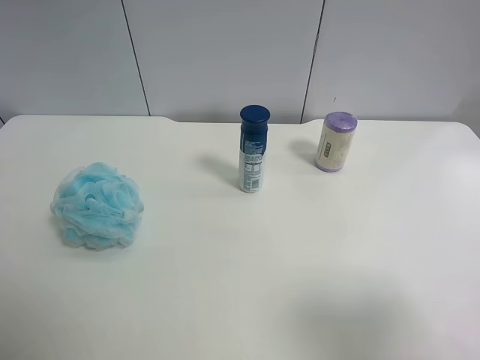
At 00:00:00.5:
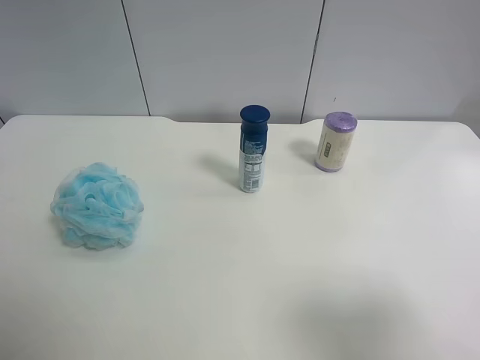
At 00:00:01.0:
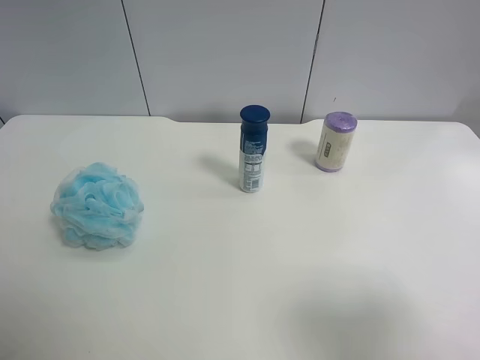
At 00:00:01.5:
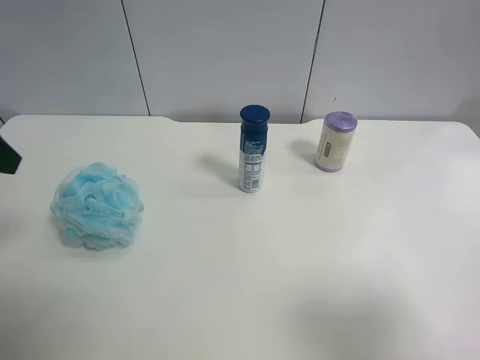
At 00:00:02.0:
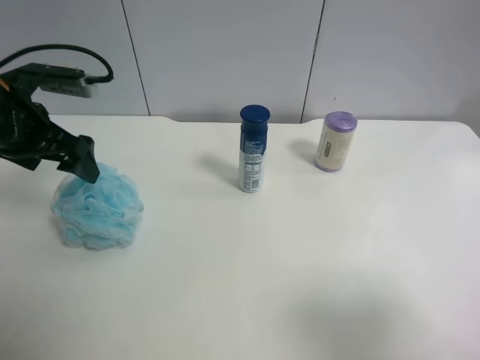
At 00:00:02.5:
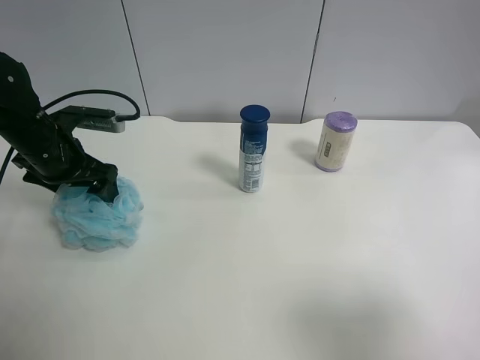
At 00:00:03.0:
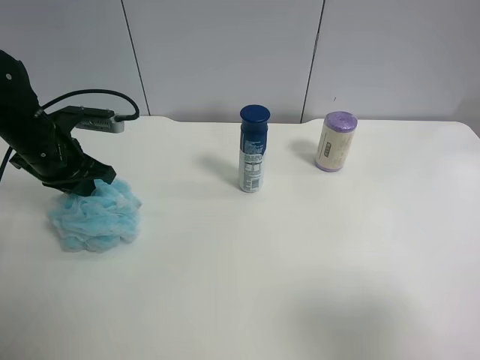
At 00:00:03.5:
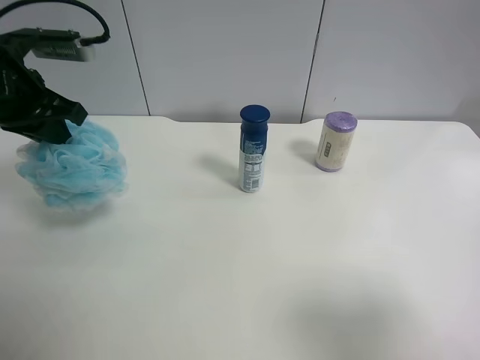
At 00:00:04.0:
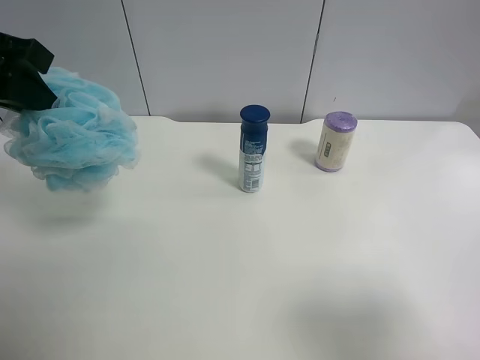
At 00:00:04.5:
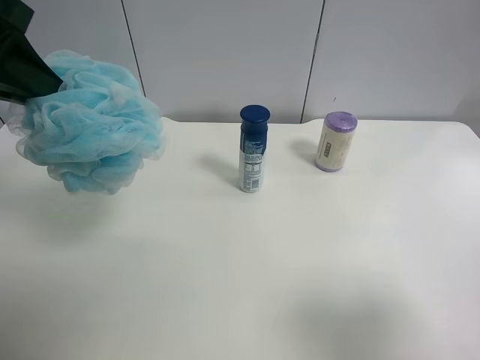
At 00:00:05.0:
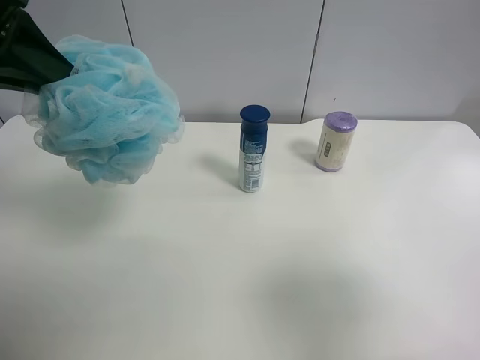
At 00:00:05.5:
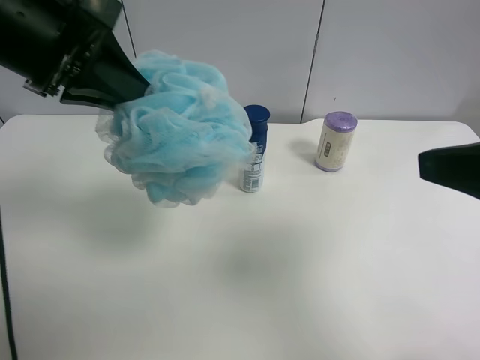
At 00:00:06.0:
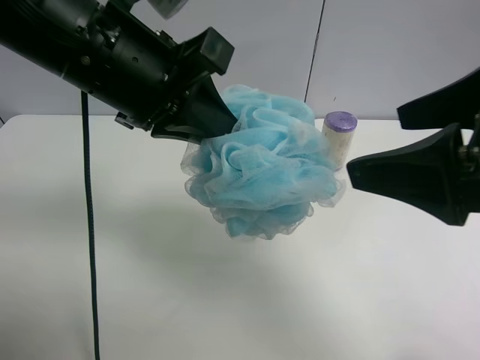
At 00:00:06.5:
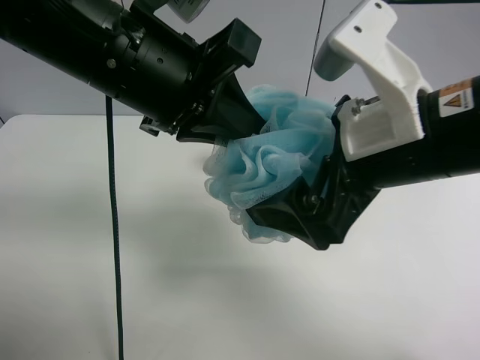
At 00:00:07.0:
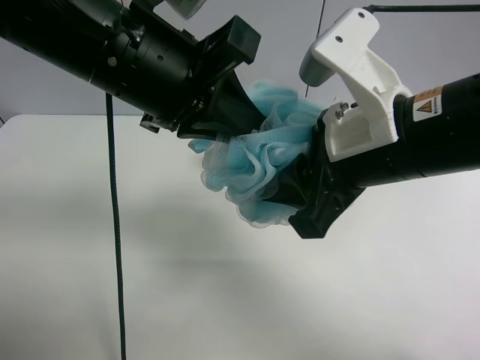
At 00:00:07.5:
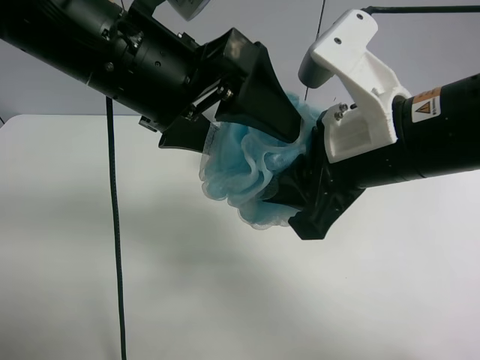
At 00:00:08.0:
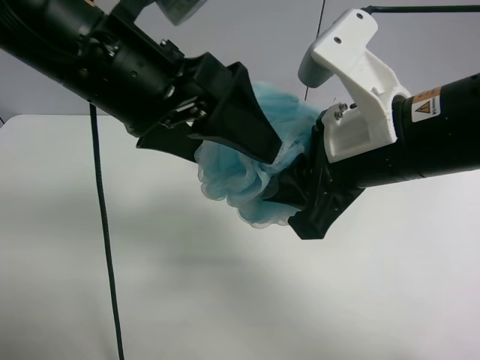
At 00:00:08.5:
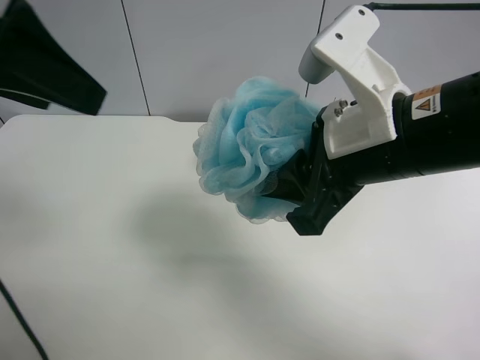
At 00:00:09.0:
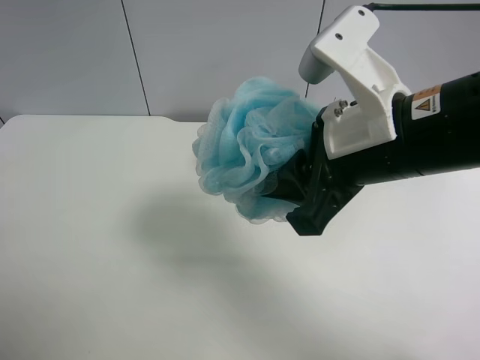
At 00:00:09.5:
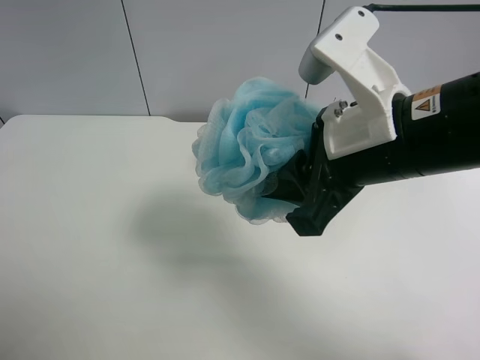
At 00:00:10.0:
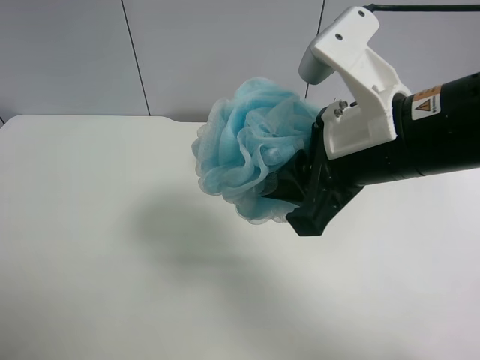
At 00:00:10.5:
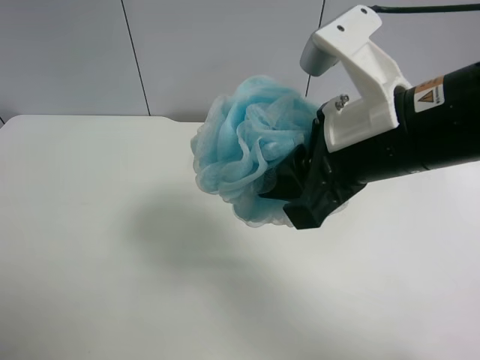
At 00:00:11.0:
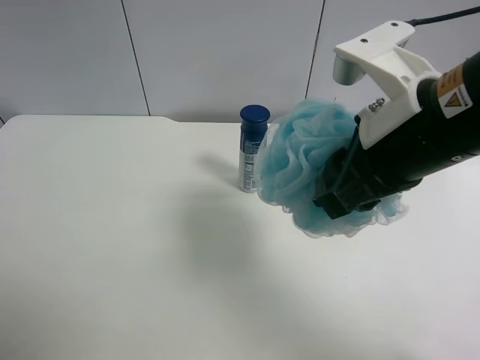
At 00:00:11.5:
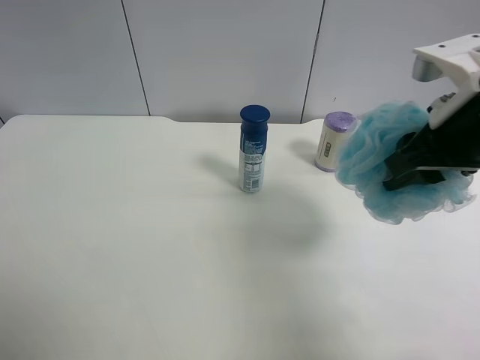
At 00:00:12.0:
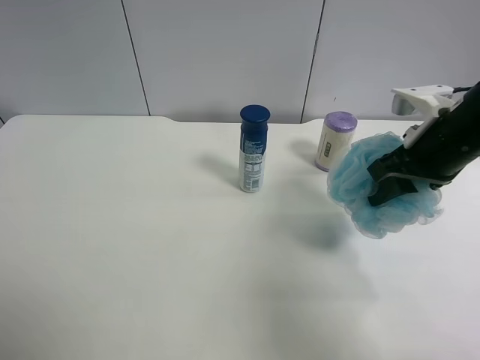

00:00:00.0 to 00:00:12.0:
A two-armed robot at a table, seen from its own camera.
Task of the whole recording: use the left gripper to pick up the item and transfer it from the left gripper to the right gripper.
00:00:00.0 to 00:00:02.0: The left gripper goes about 30 cm forward.
00:00:02.0 to 00:00:04.0: The left gripper shifts roughly 15 cm upward and backward, and closes.
00:00:04.0 to 00:00:06.0: The right gripper travels forward, to the left and upward by approximately 15 cm, while the left gripper shifts roughly 15 cm to the right.
00:00:06.0 to 00:00:08.0: The right gripper is displaced to the left and downward by roughly 10 cm, and closes up, while the left gripper opens.
00:00:08.0 to 00:00:10.0: The left gripper is displaced backward and to the left by roughly 30 cm.
00:00:10.0 to 00:00:12.0: The right gripper is displaced to the right, forward and downward by approximately 15 cm.

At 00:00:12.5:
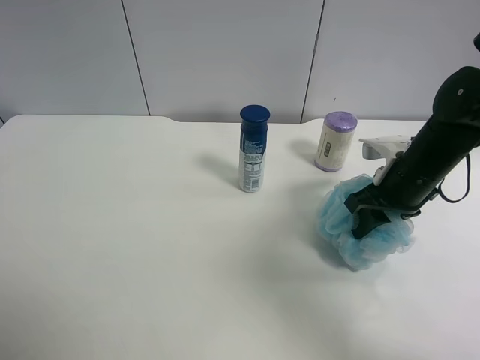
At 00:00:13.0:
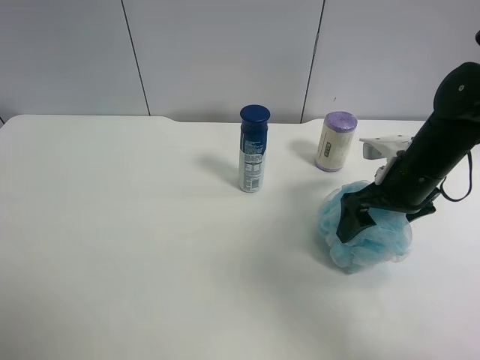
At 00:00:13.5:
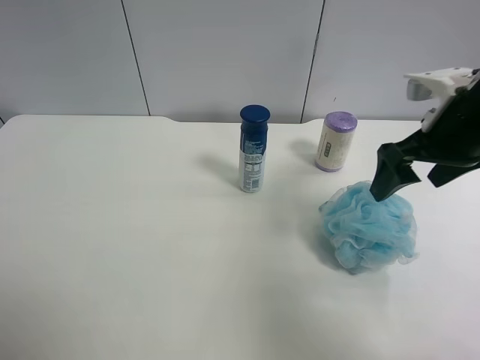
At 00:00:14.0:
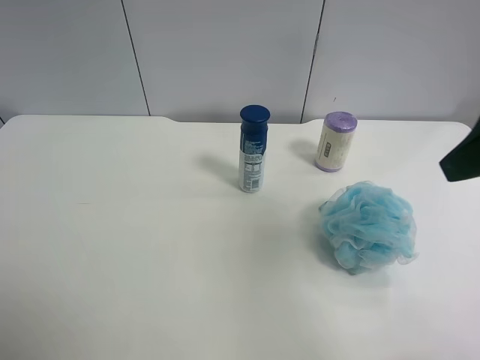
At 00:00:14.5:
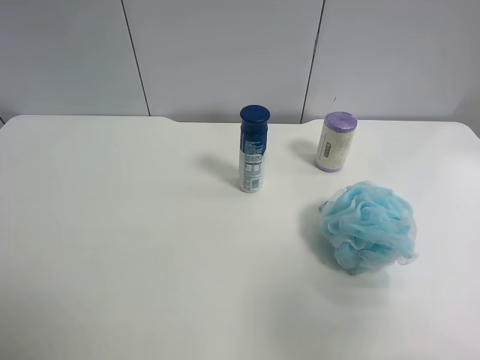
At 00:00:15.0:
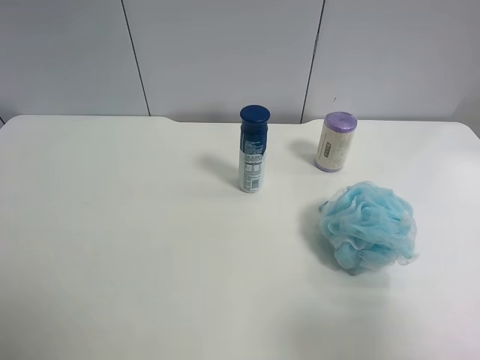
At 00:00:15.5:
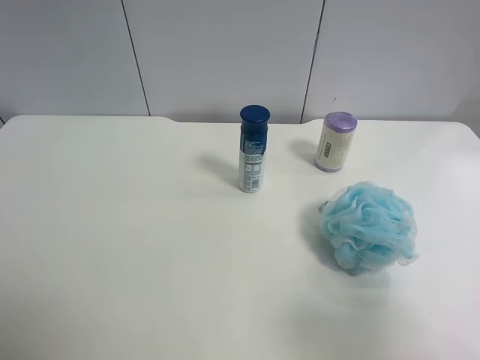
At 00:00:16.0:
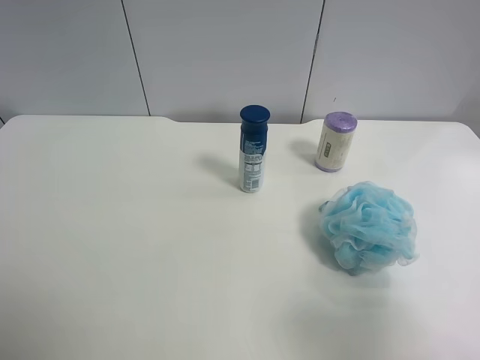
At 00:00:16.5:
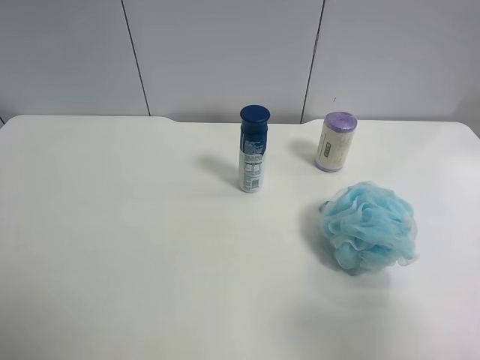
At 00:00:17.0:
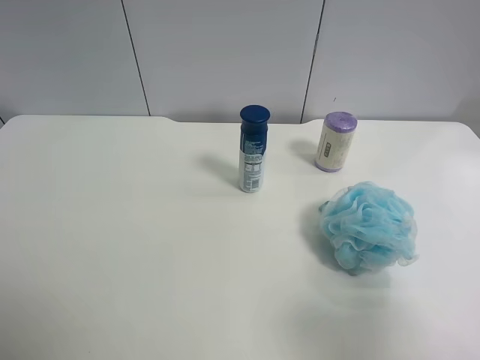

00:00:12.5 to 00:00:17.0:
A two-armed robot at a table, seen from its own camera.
Task of the whole recording: use the left gripper to pick up the item and transfer it from the left gripper to the right gripper.
00:00:12.5 to 00:00:14.5: The right gripper is displaced backward and upward by approximately 30 cm, and opens up.
